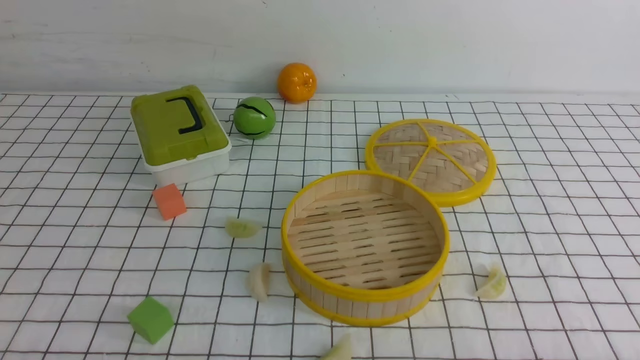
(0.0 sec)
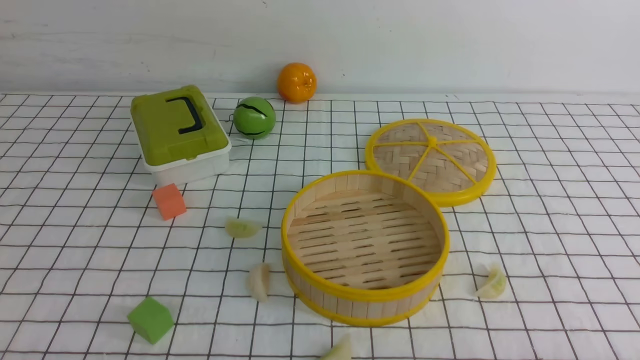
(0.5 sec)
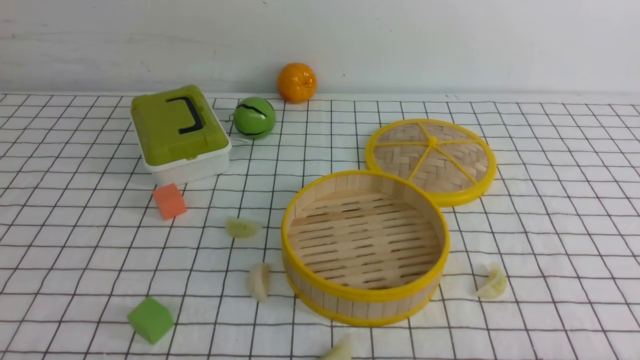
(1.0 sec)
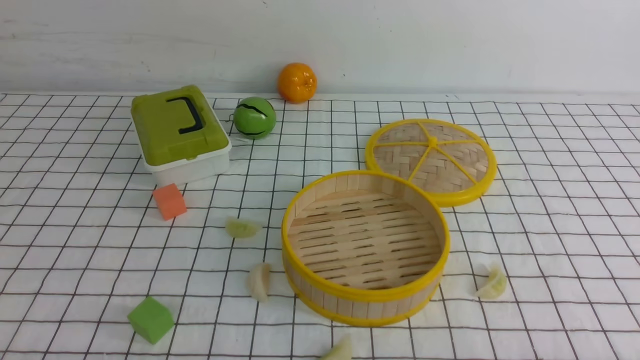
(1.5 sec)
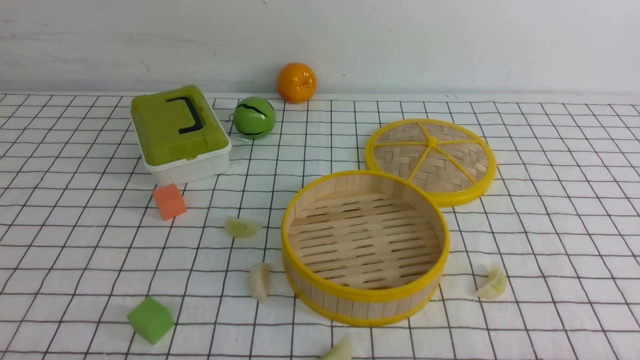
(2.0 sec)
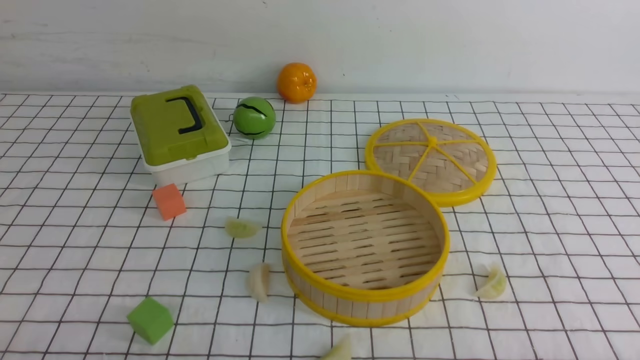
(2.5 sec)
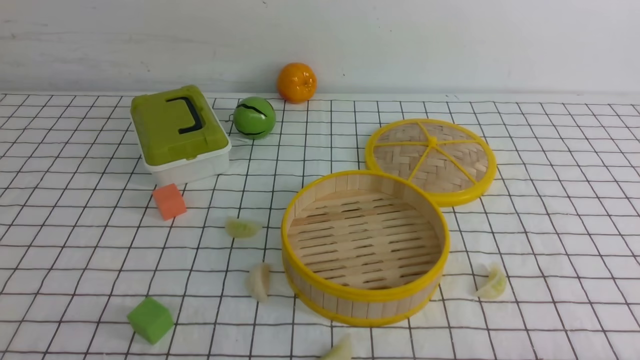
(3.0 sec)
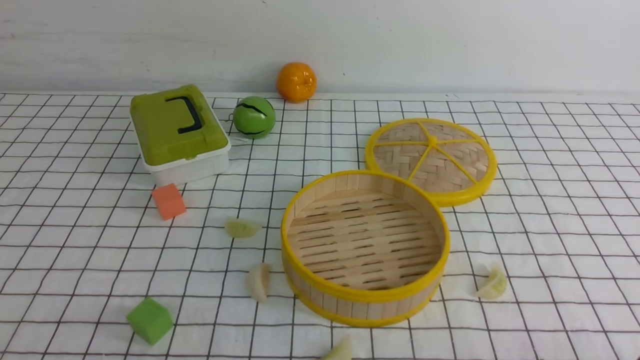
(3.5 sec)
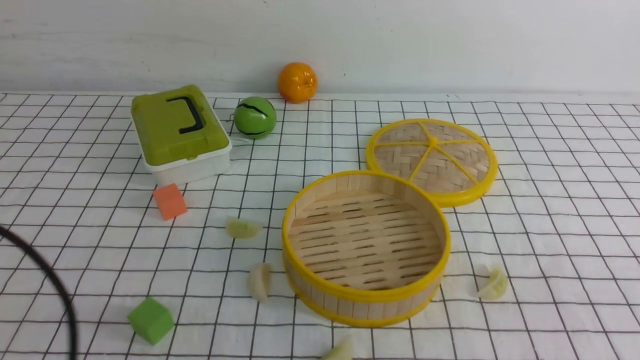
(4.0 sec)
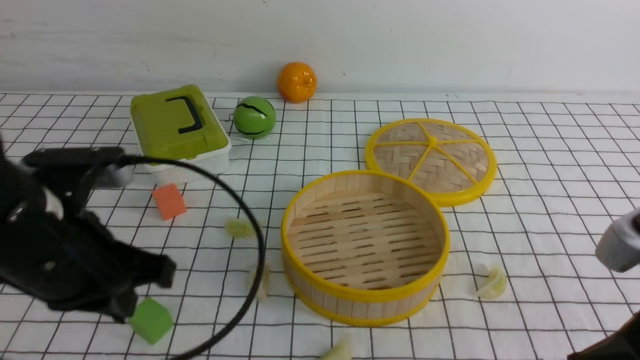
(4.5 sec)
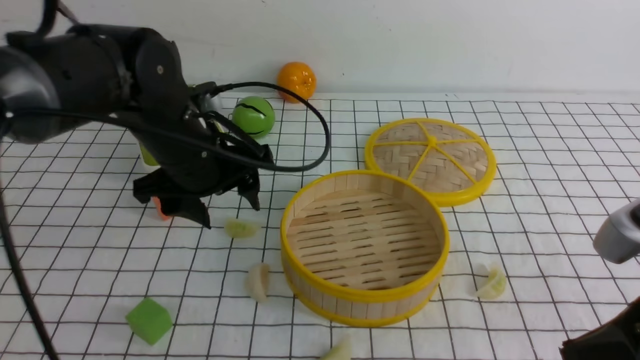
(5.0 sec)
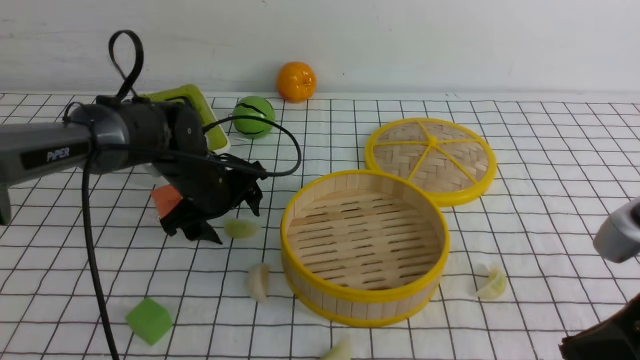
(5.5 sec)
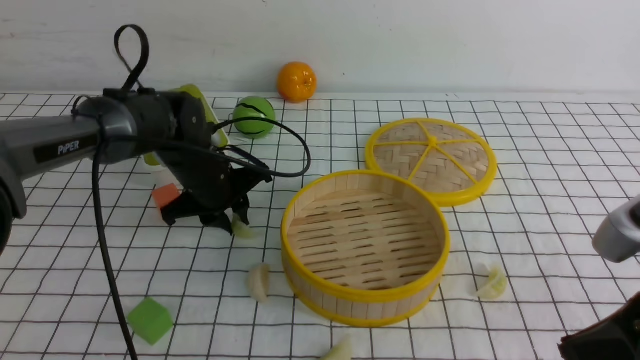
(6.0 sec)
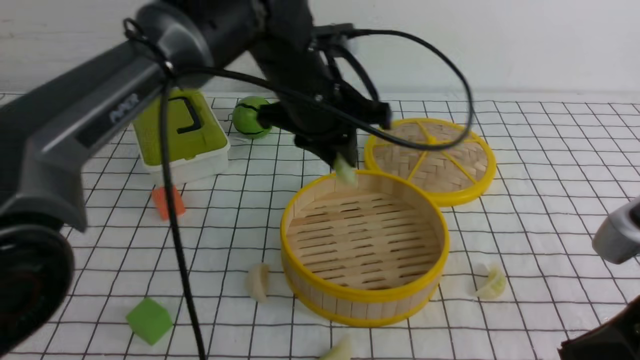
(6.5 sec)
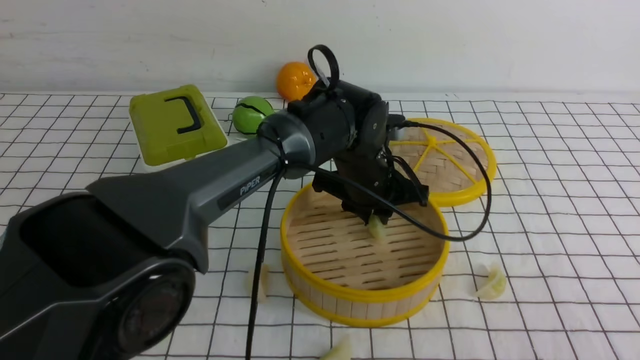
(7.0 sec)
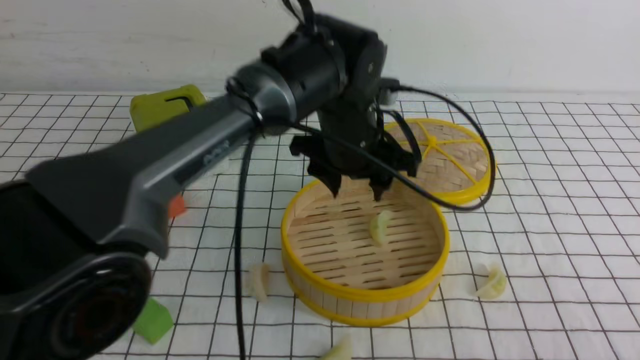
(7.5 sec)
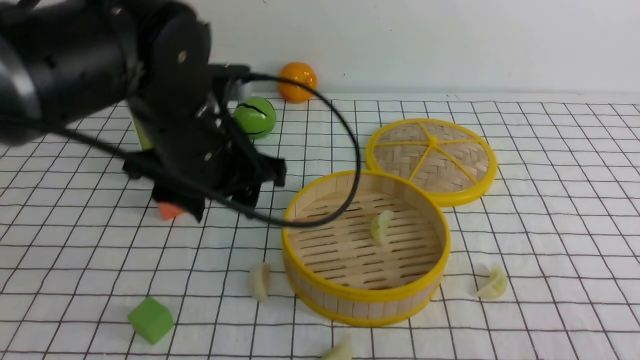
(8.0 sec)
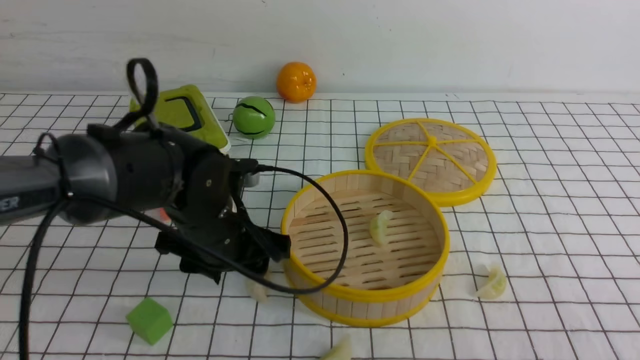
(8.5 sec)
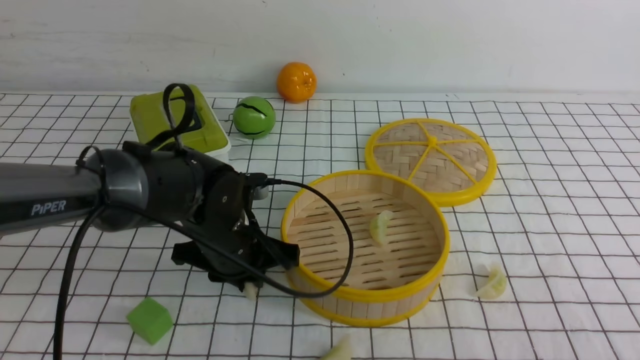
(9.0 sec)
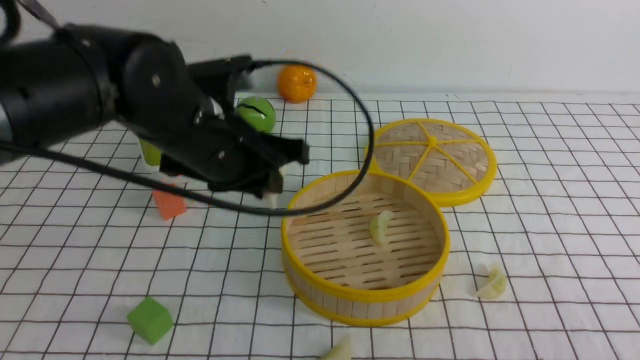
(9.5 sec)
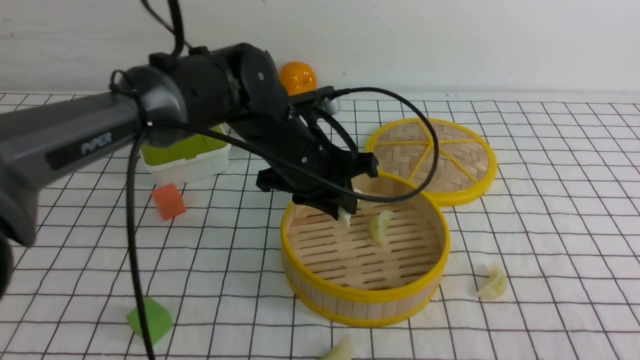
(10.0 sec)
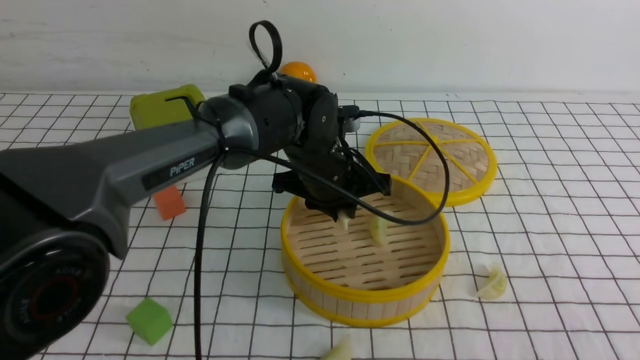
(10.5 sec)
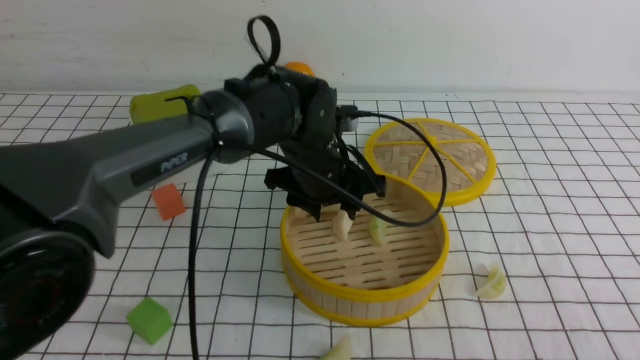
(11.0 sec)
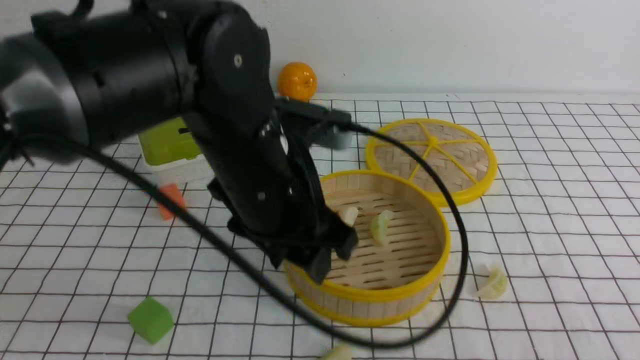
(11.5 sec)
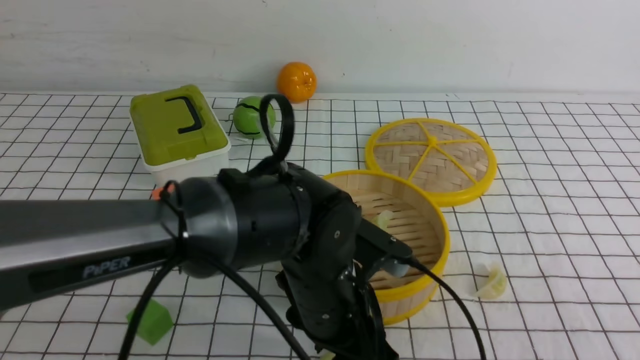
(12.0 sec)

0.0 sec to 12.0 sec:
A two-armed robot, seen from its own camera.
Task of the whole recording: put the dumplings into the steamer on the table with the white tablecloth.
Step, 0.0 sec to 6.0 sec: use the left arm to grab a dumpling.
Step, 6.5 sec to 7.5 sec: use the left arm to put the dumpling into the steamer.
Step, 8.0 sec to 9.0 sec: use the left arm to grab a dumpling.
Step, 9.5 sec to 10.5 sec: use the left arm to put the dumpling into the steamer.
2.0 sec to 4.0 sec: The left gripper is displaced upward by about 15 cm, and closes up.
4.0 sec to 6.0 sec: The left gripper shifts some 35 cm forward, and opens its fingers, while the right gripper travels forward by roughly 5 cm.
6.0 sec to 8.0 sec: The left gripper is displaced backward and upward by roughly 15 cm, reaches approximately 20 cm to the right, then returns, and opens. The right gripper goes roughly 10 cm backward.
8.0 sec to 10.0 sec: The left gripper is displaced to the right and forward by some 10 cm, goes downward and returns, roughly 10 cm each way, and closes its fingers.
10.0 sec to 12.0 sec: The left gripper travels backward and downward by some 15 cm, and opens.

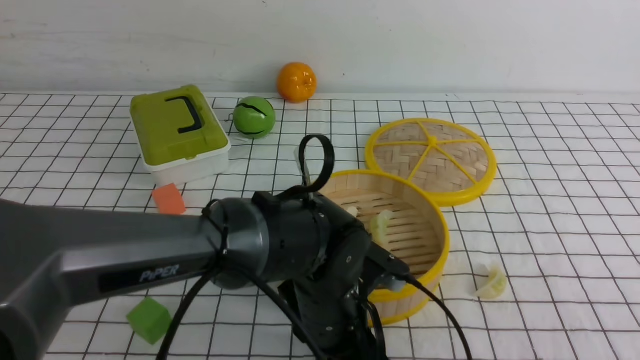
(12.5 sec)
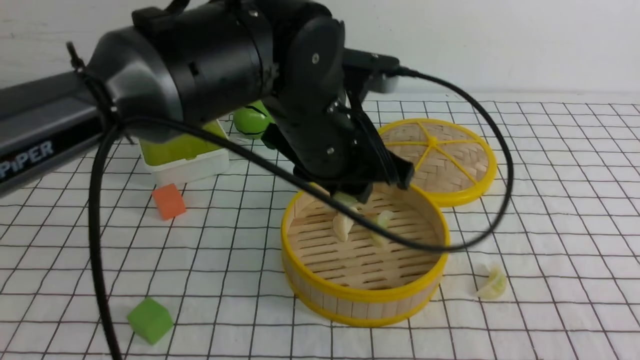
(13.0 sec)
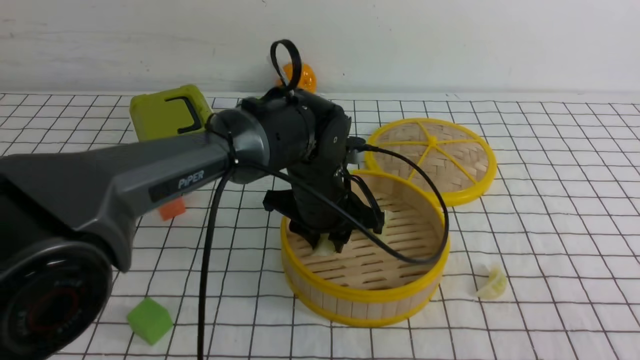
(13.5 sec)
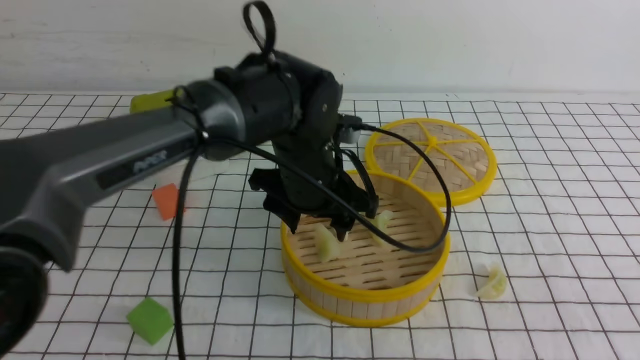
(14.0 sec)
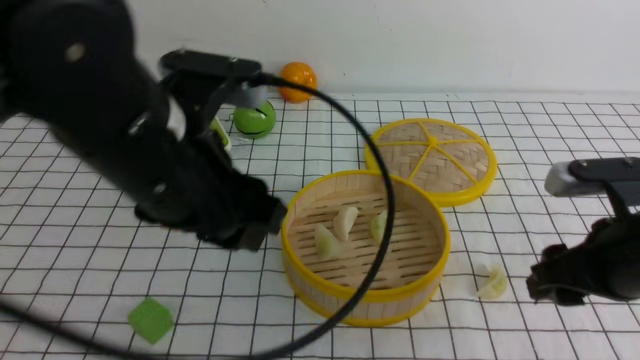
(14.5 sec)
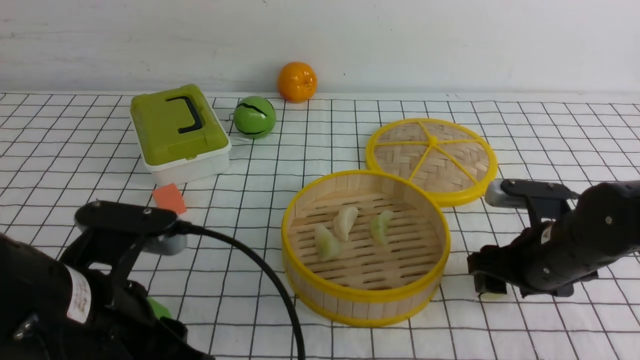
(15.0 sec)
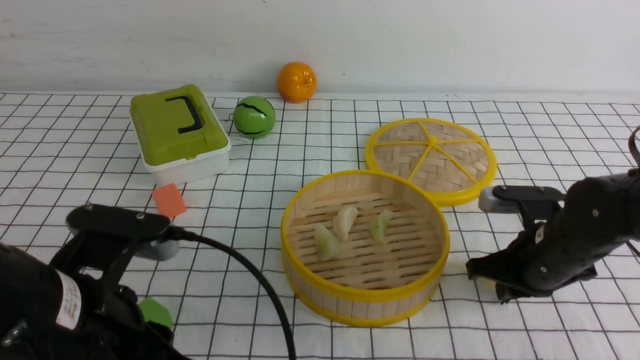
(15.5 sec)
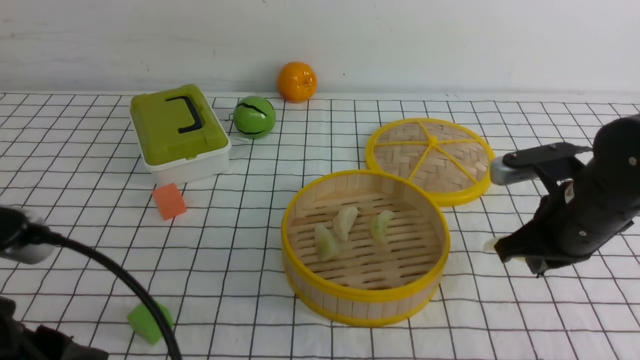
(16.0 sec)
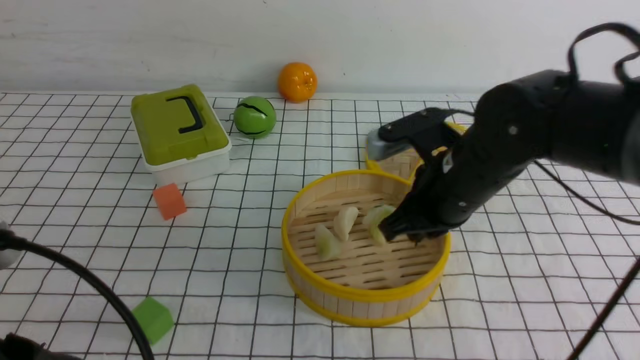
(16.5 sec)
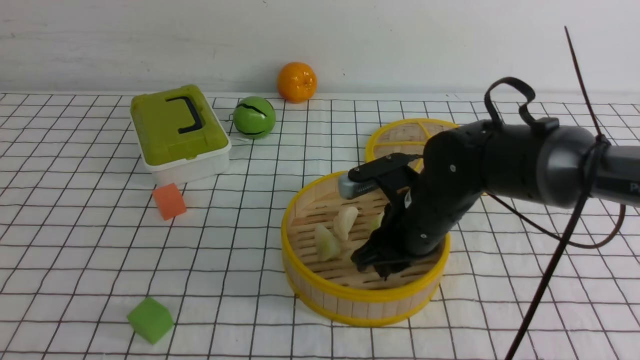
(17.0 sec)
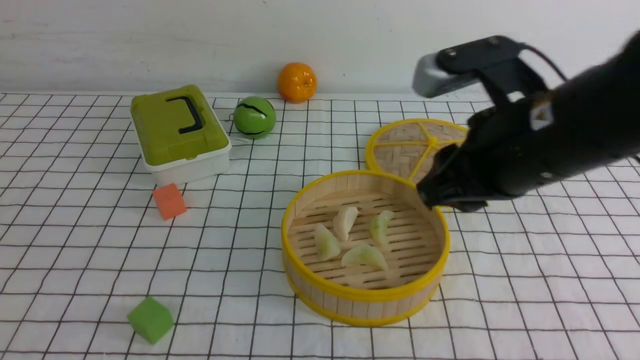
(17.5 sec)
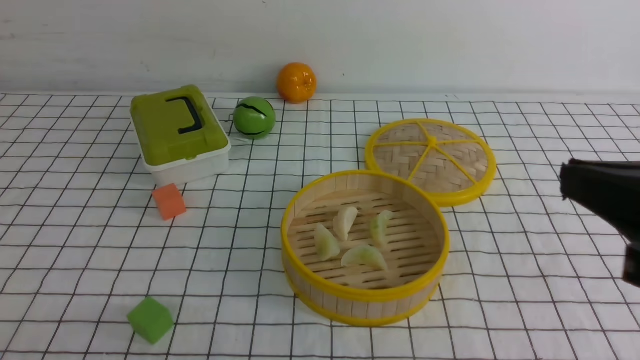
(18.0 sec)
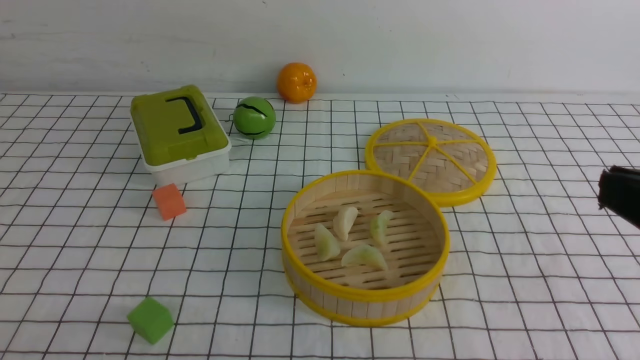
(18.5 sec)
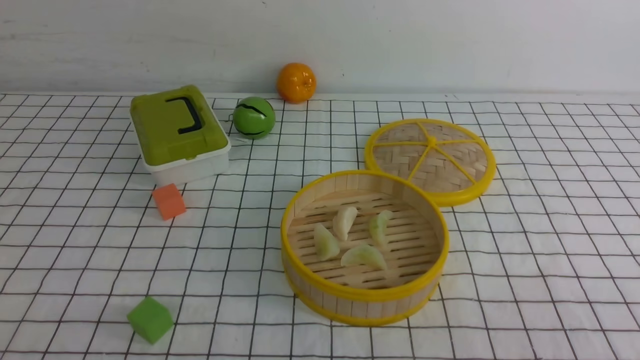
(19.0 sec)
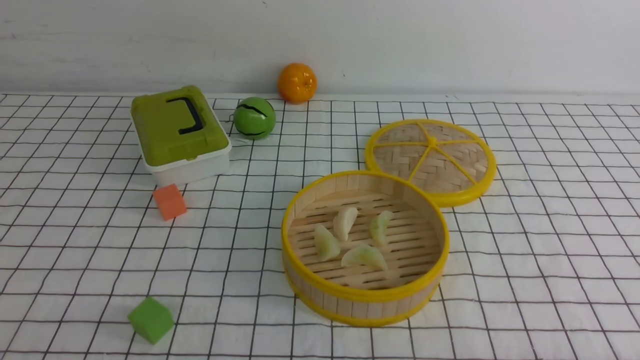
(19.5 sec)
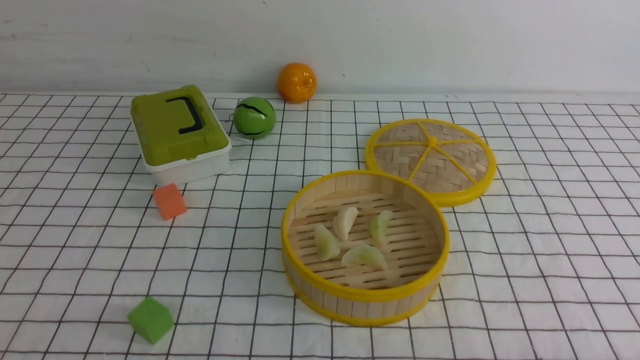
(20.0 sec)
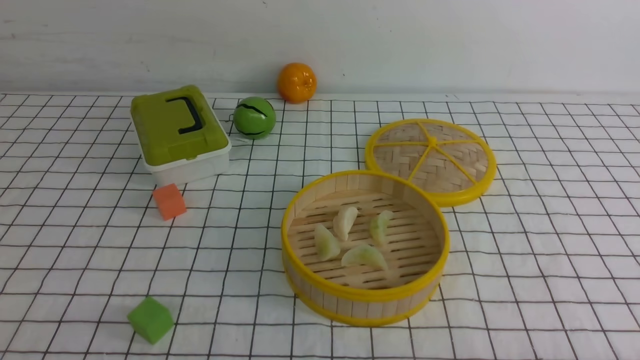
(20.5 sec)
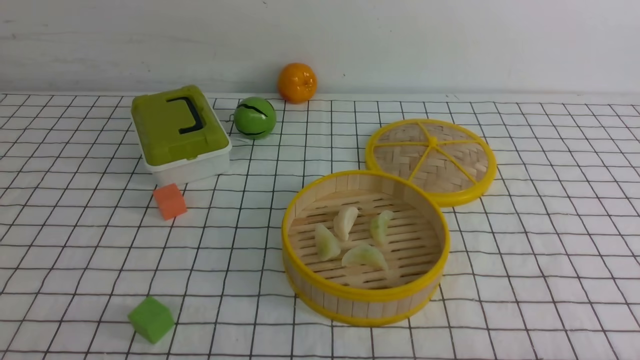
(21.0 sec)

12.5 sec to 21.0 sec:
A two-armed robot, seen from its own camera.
Task of the whole recording: put the dumplings into the steamer on the table with the white tablecloth.
Step, 13.5 sec to 14.5 sec: use the left arm to put the dumpling into the steamer.
Step, 15.0 sec to 15.5 sec: use the right arm to grab a dumpling.
Step, 16.0 sec to 17.0 sec: use the right arm to put the dumpling into the steamer.
12.5 sec to 14.5 sec: The right gripper shifts about 20 cm forward and downward, and opens its fingers. Meanwhile the left gripper swings up and down, about 15 cm each way, with 2 reversals.
14.5 sec to 16.5 sec: The left gripper travels backward and to the left by roughly 15 cm, and closes up, while the right gripper heads to the left and forward, covering roughly 15 cm, and closes.
16.5 sec to 19.0 sec: The left gripper is displaced backward and to the left by about 10 cm. The right gripper travels backward and to the right by about 30 cm, and opens, then closes again.
